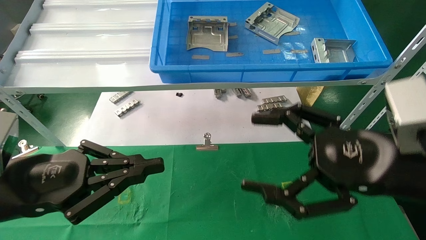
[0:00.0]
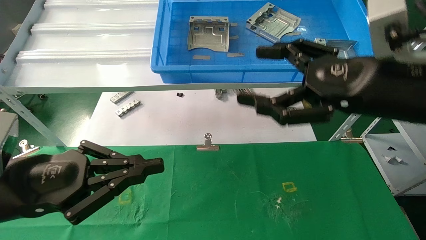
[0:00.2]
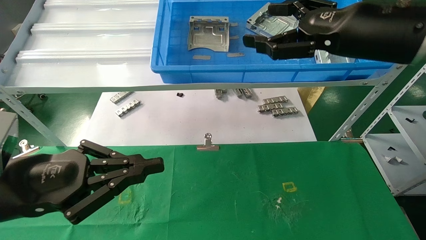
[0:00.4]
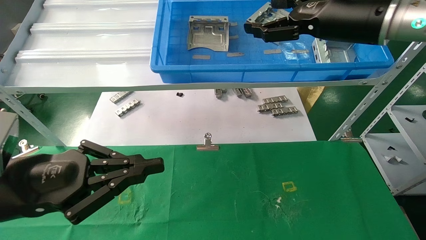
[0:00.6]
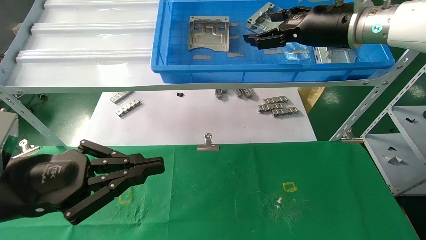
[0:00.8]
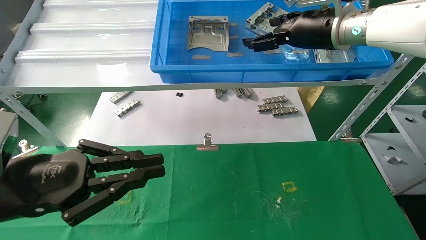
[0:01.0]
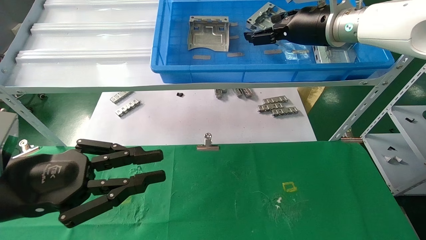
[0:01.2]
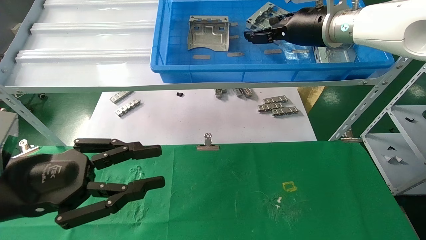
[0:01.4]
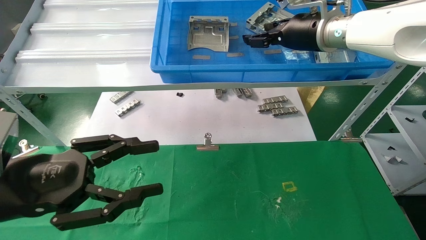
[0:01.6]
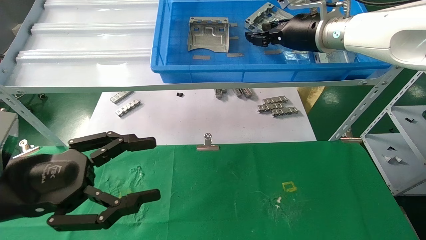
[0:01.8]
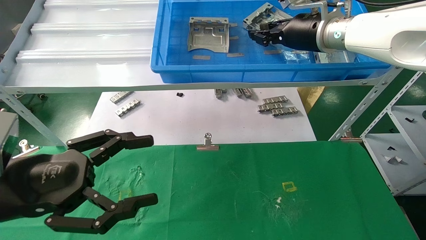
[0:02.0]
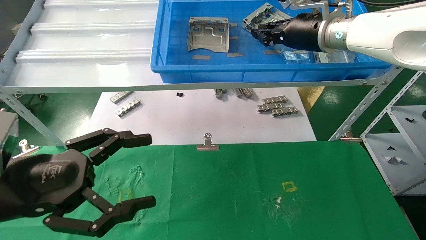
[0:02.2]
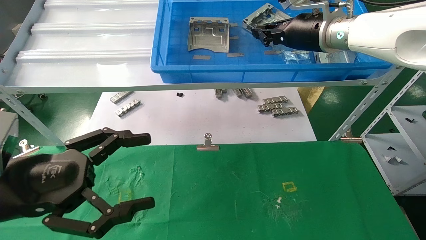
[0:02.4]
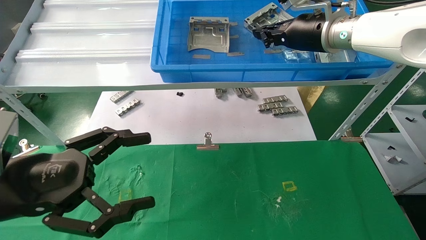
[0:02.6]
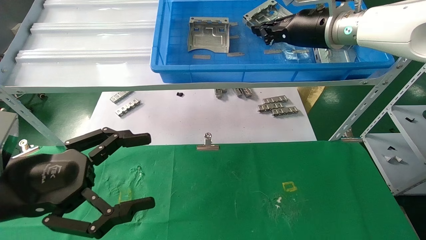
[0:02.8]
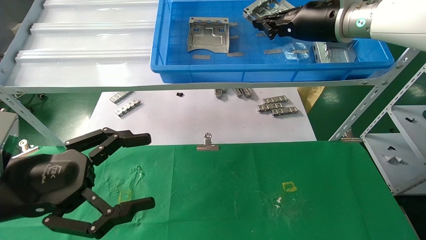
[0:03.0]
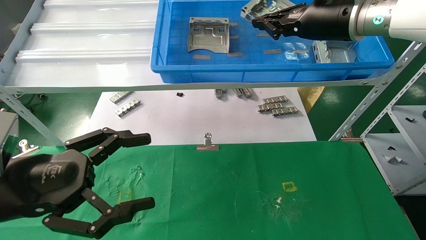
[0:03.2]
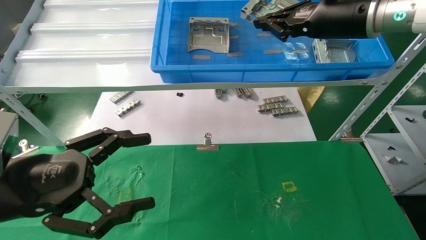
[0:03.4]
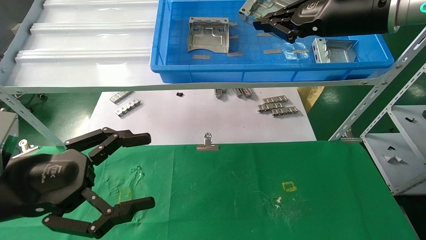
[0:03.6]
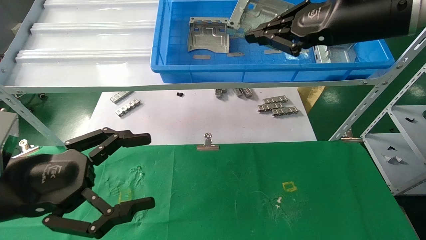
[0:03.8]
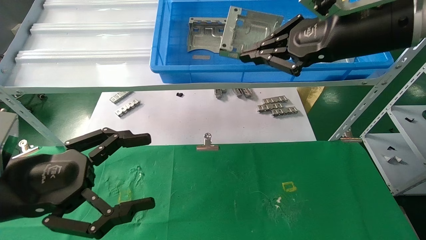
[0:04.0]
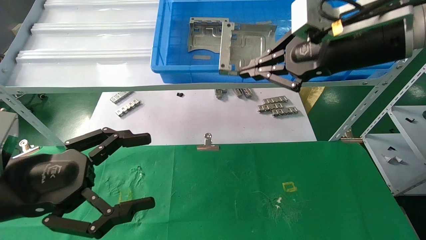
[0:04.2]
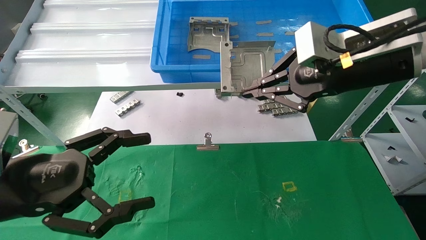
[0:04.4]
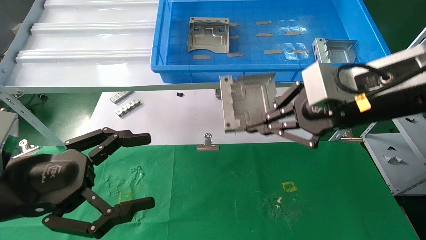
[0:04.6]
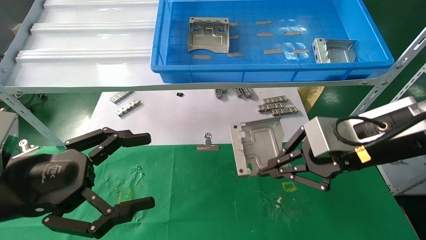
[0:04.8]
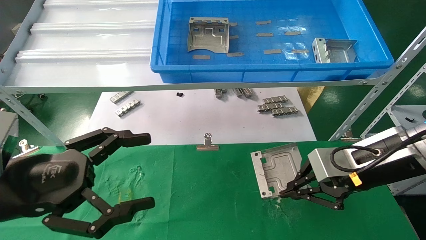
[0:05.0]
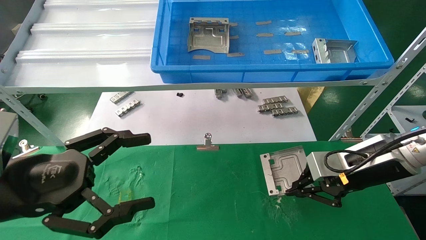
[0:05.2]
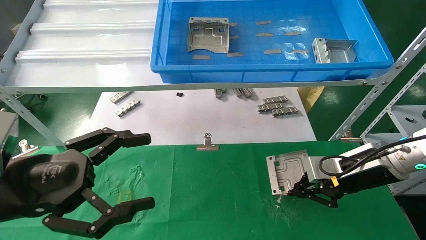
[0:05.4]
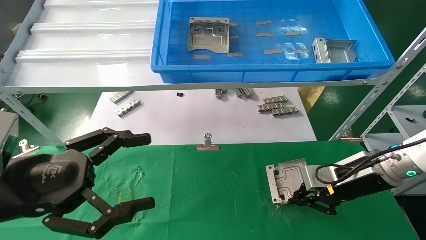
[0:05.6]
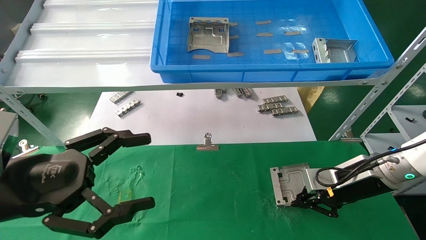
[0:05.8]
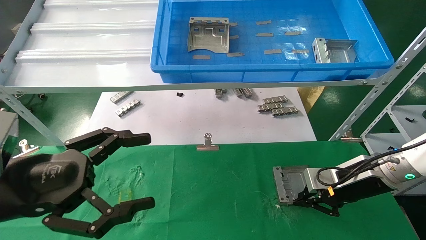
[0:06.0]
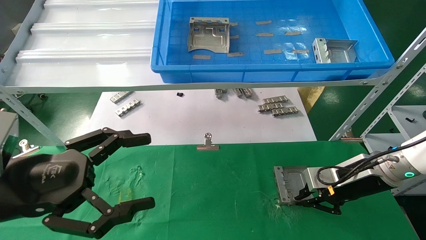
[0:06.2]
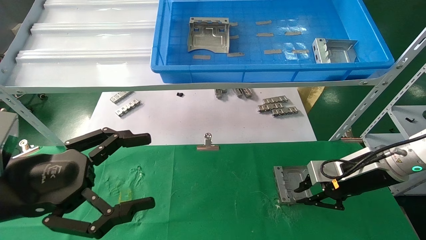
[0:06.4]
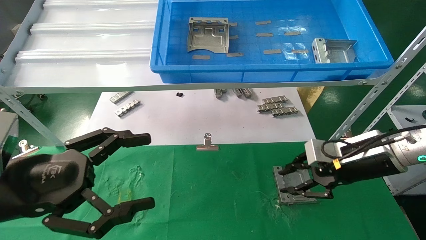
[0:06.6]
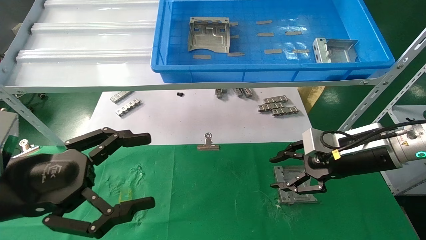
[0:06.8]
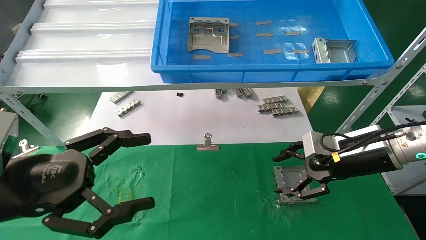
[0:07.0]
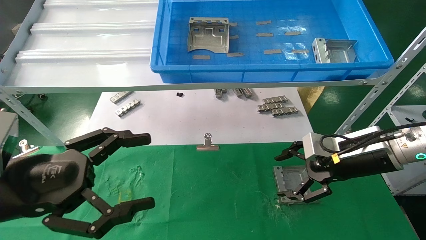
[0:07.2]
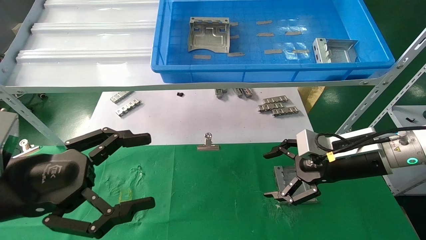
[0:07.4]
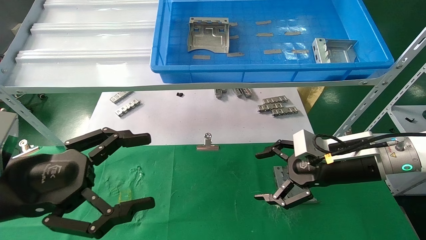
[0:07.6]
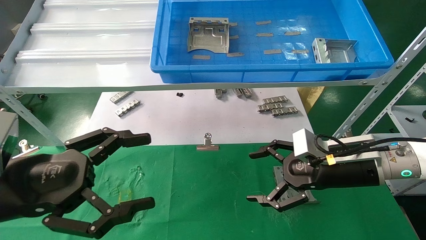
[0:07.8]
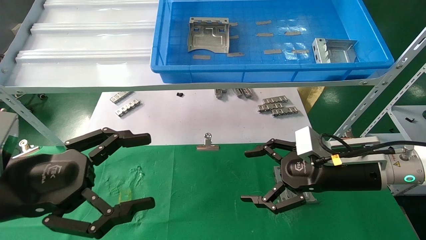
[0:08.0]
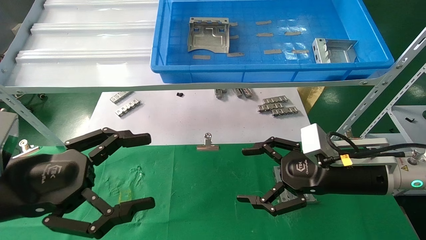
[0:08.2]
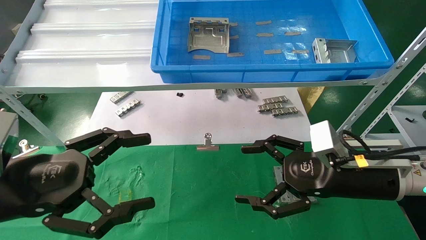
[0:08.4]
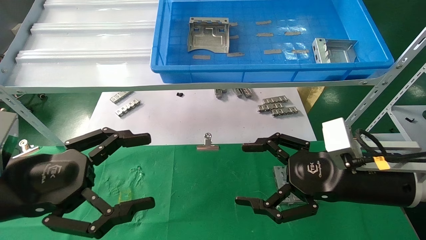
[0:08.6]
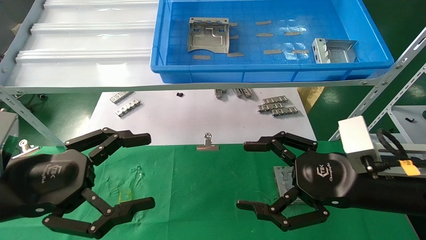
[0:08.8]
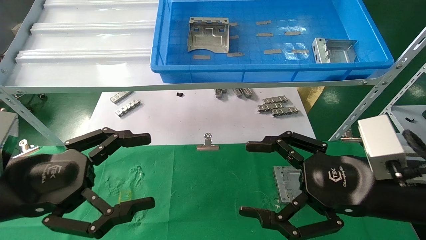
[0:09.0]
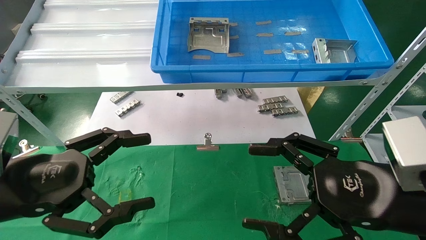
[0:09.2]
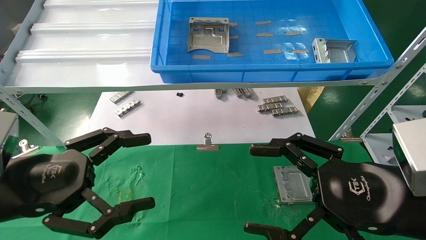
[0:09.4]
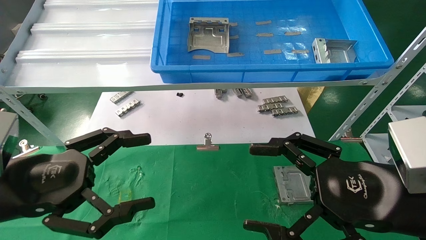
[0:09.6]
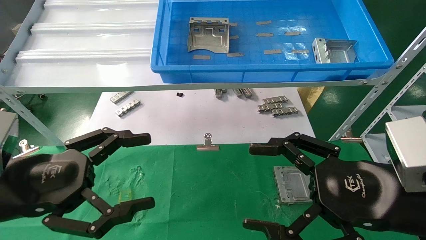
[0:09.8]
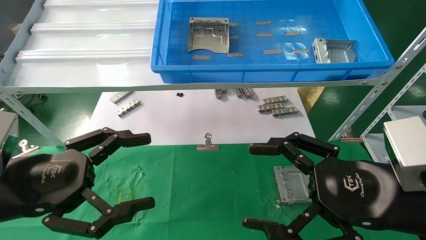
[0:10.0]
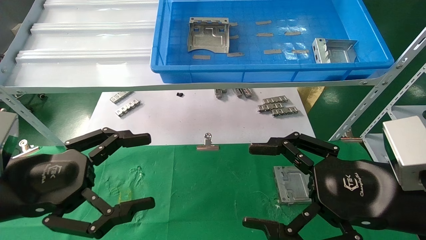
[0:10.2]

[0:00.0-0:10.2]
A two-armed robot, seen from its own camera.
Task of the whole recording: use the mechanical arm to pick up the parts and place them on the table.
Step, 0:00.0 to 0:04.8: Pick up the hard drive bracket from the feeding area.
Step, 0:05.0 to 0:08.4: Place the hard drive bracket into the box.
0:00.0 to 0:01.4: The right gripper travels forward and upward by about 20 cm.
0:01.4 to 0:03.0: The right gripper closes, while the left gripper opens up.
0:03.0 to 0:04.4: The right gripper moves backward, about 10 cm.
0:04.4 to 0:05.8: The right gripper goes some 20 cm downward.
0:05.8 to 0:07.2: The right gripper opens its fingers.
0:07.2 to 0:08.8: The right gripper is displaced backward by some 10 cm.
0:08.8 to 0:10.2: The right gripper ends up about 5 cm from where it was.

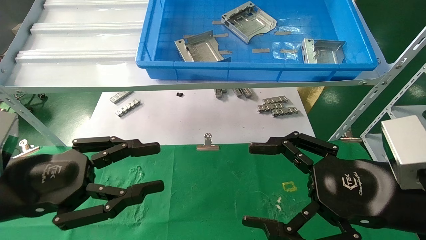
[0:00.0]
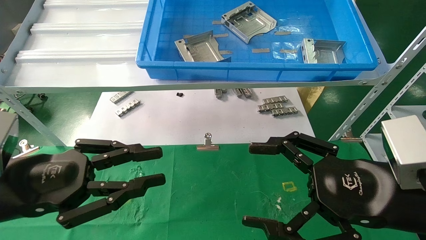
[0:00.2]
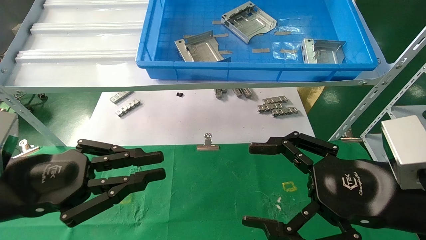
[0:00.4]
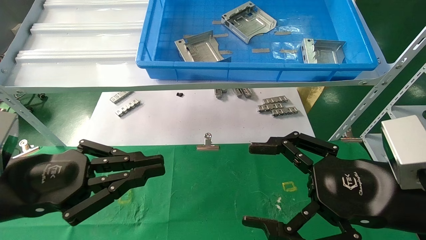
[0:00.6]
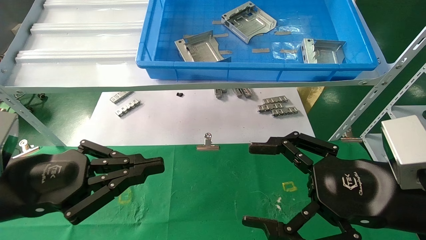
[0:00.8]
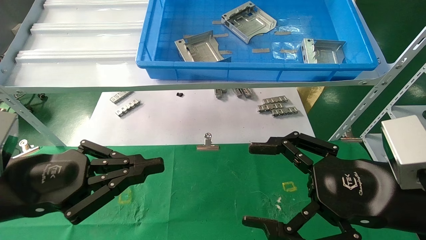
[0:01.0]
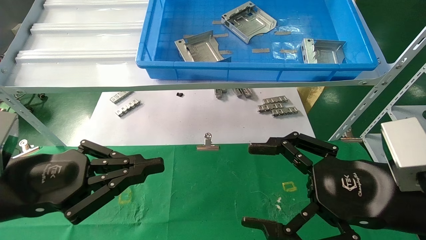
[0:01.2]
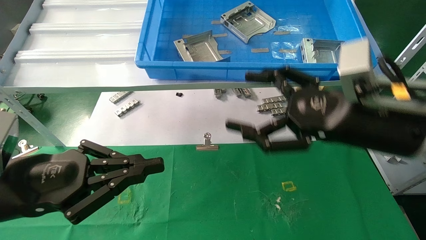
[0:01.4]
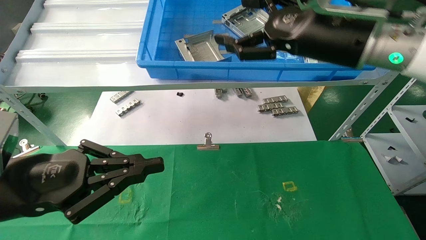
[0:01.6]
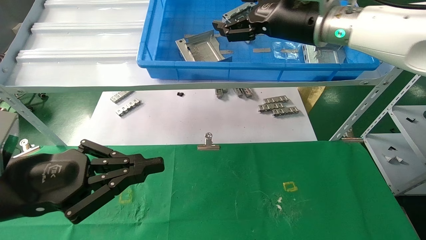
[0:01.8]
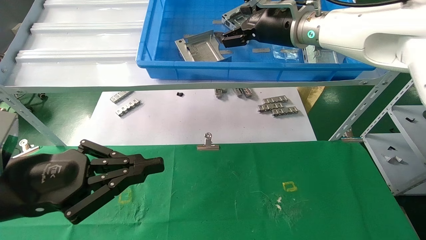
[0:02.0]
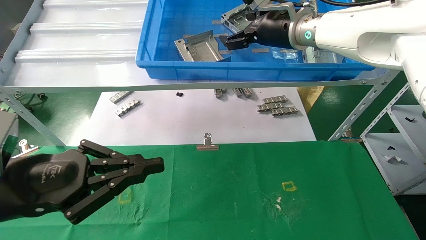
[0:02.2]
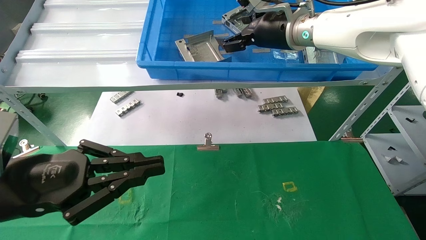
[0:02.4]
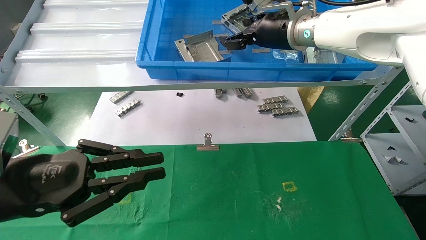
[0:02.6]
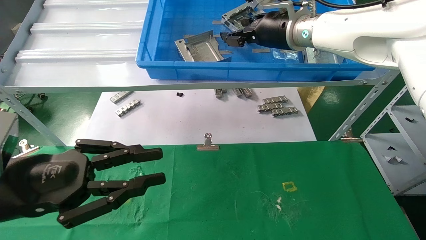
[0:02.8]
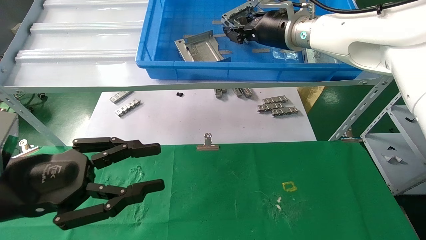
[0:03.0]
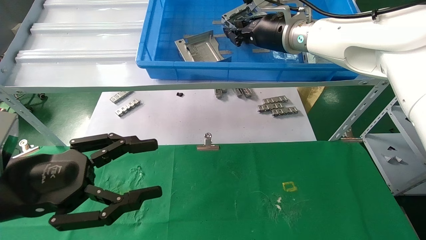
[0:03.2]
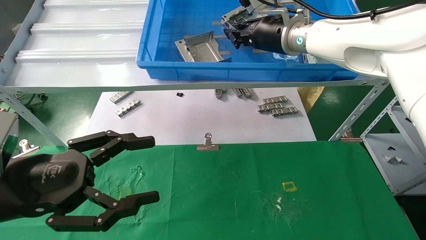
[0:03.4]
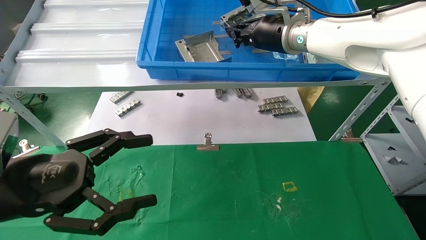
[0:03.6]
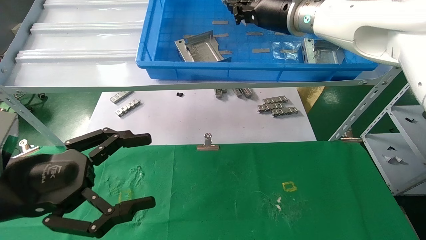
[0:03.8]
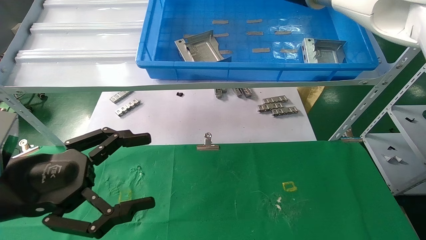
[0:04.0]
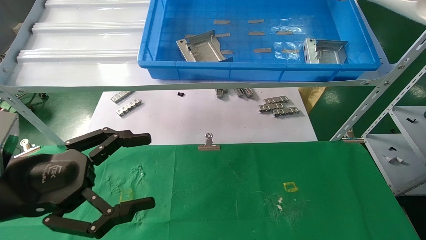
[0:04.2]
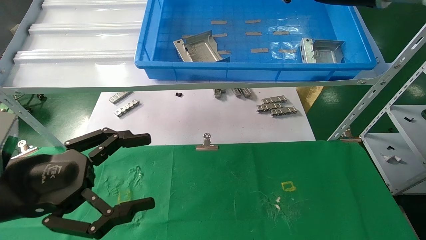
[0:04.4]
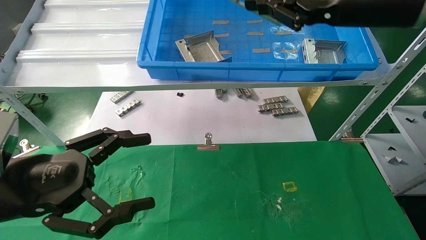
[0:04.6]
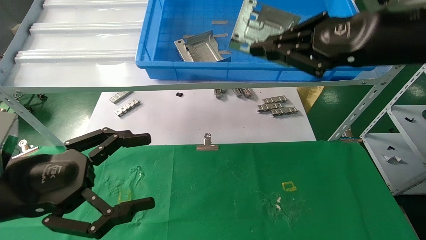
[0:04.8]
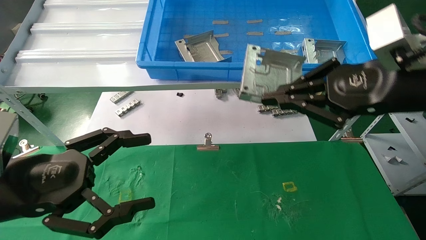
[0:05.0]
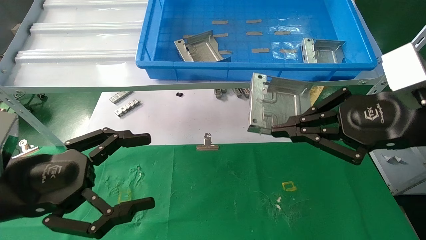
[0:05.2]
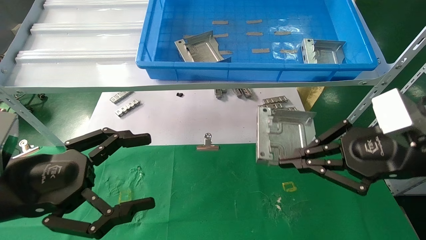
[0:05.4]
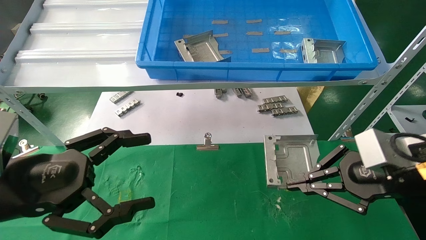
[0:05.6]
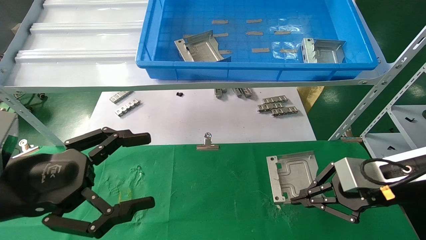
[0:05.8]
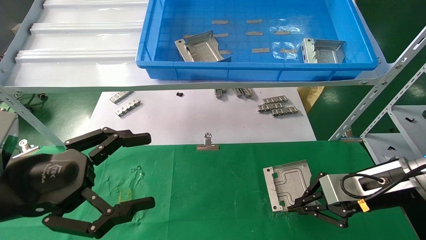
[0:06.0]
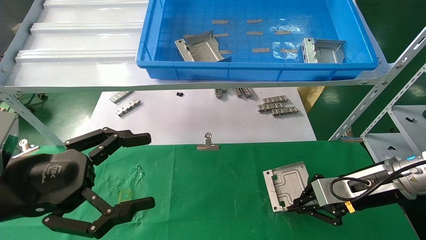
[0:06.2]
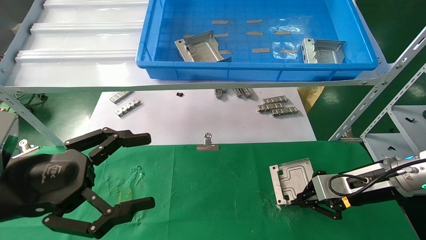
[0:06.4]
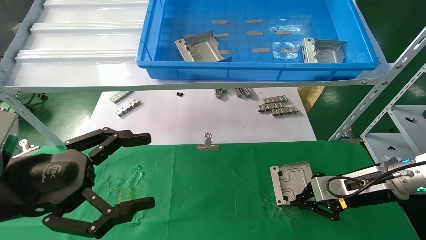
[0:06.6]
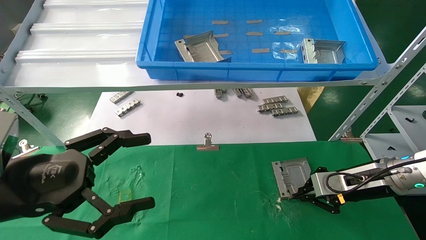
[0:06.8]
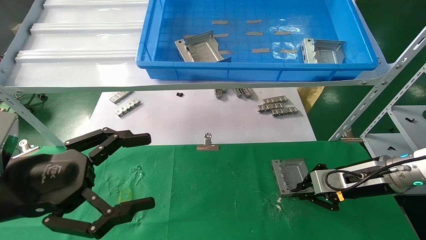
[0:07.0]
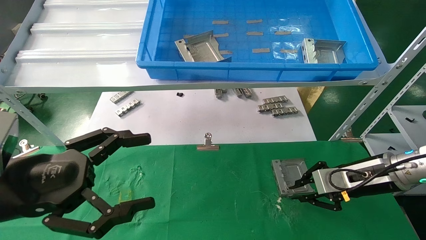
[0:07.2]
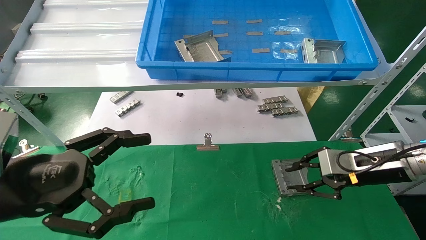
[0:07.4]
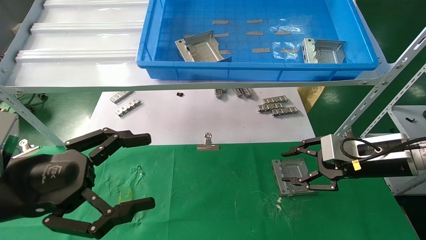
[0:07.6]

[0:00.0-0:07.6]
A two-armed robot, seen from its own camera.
Task of the whole recording: use the mechanical arm to pick up the parts and place them on the table.
Step, 0:01.6 to 0:05.2: Pick up the hard drive bracket from the feeding area.
0:00.0 to 0:01.6: The right gripper moves upward and forward, roughly 20 cm. The left gripper closes.
0:01.6 to 0:03.0: The right gripper goes roughly 15 cm forward and to the left, and closes up.
0:03.0 to 0:04.6: The left gripper opens up; the right gripper heads backward and to the right, covering roughly 15 cm, and closes up.
0:04.6 to 0:06.0: The right gripper is displaced downward by some 25 cm.
0:06.0 to 0:07.6: The right gripper opens its fingers.
